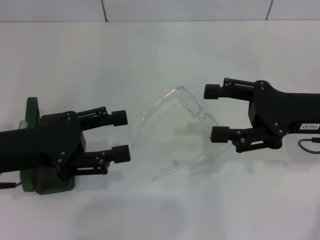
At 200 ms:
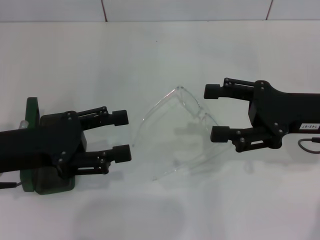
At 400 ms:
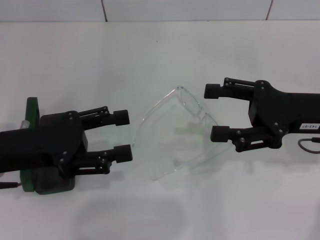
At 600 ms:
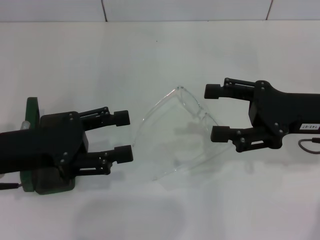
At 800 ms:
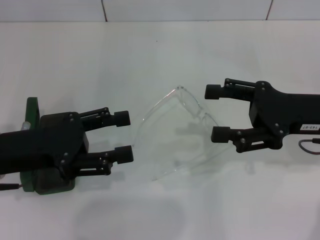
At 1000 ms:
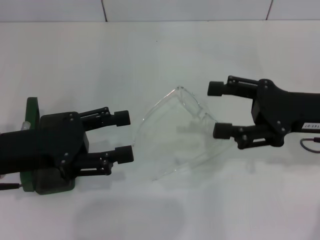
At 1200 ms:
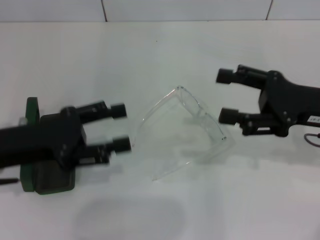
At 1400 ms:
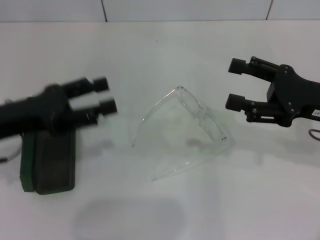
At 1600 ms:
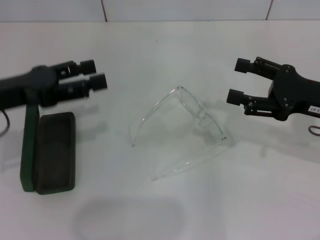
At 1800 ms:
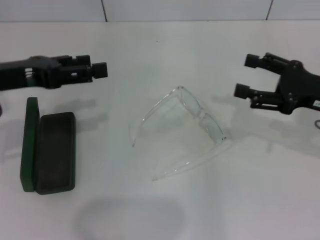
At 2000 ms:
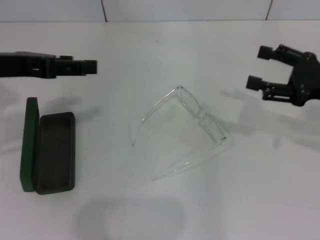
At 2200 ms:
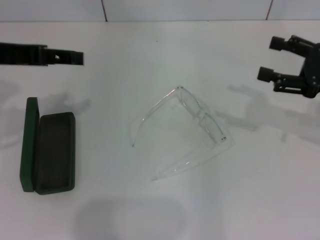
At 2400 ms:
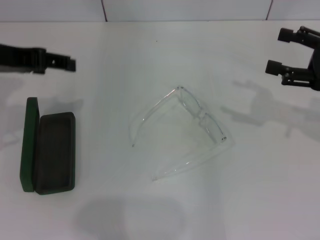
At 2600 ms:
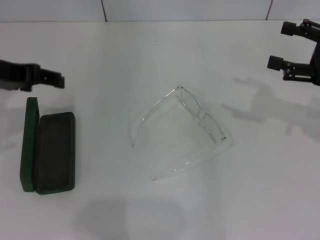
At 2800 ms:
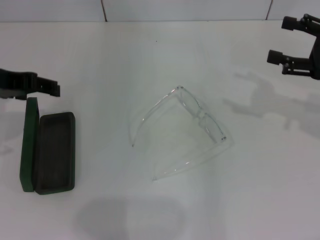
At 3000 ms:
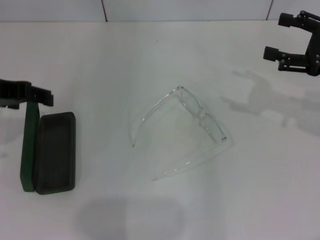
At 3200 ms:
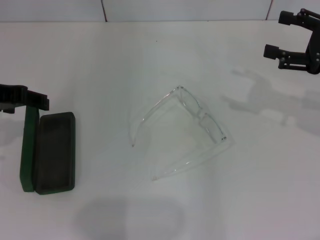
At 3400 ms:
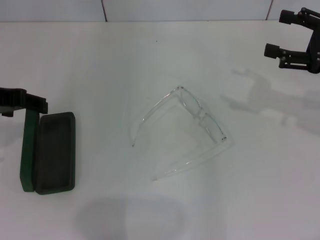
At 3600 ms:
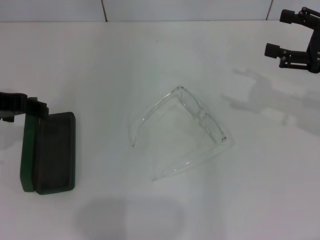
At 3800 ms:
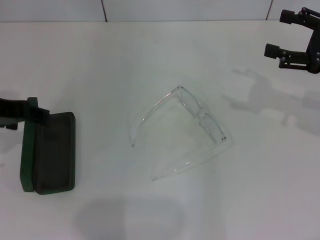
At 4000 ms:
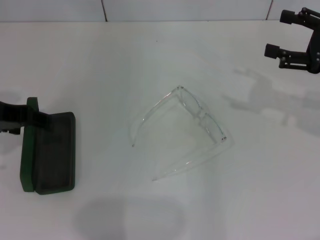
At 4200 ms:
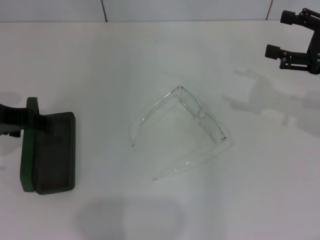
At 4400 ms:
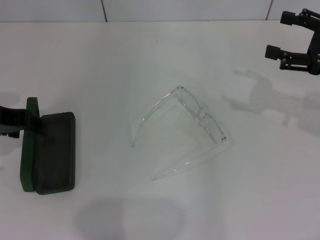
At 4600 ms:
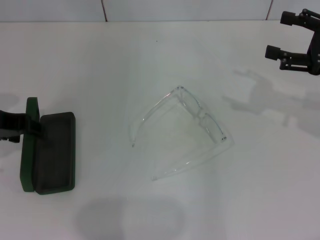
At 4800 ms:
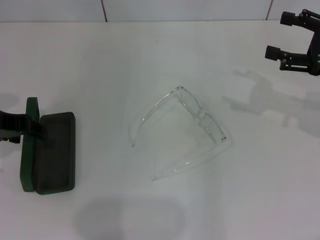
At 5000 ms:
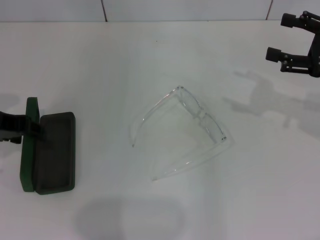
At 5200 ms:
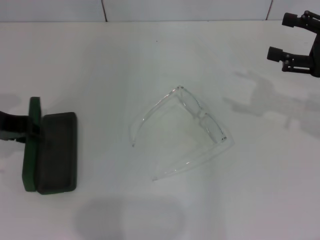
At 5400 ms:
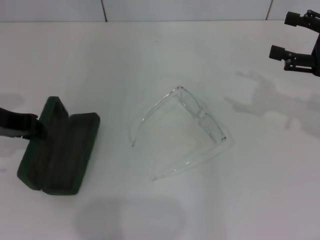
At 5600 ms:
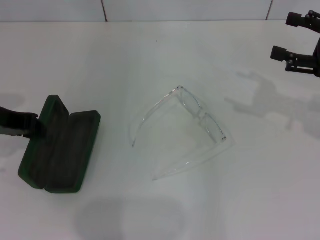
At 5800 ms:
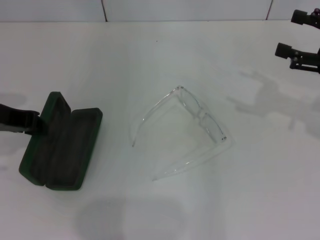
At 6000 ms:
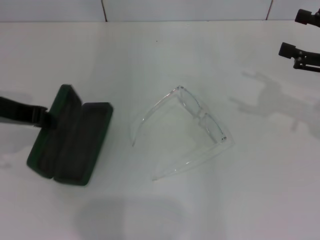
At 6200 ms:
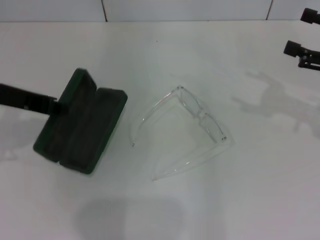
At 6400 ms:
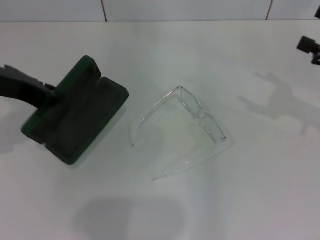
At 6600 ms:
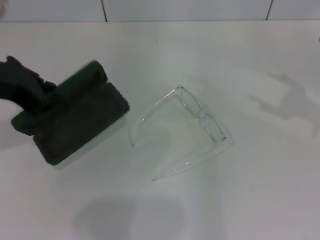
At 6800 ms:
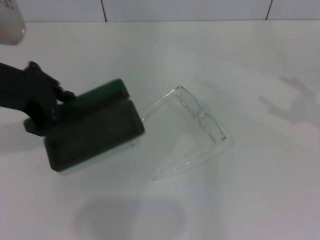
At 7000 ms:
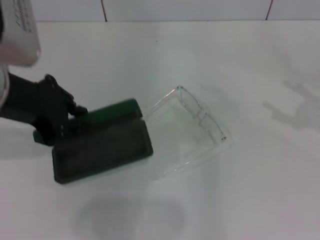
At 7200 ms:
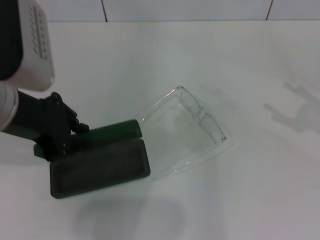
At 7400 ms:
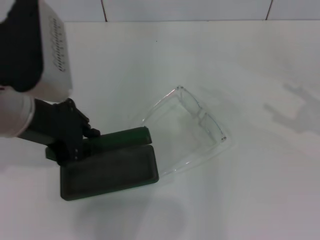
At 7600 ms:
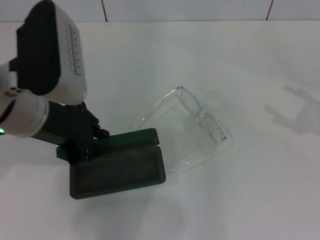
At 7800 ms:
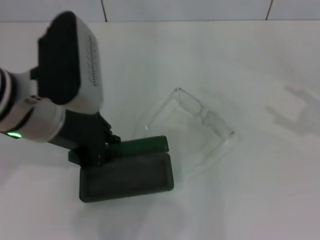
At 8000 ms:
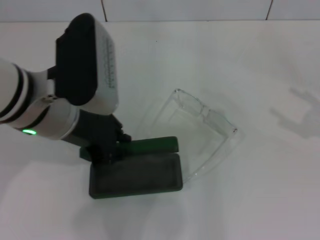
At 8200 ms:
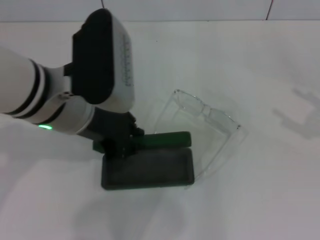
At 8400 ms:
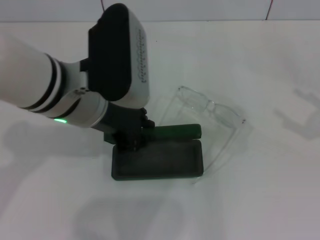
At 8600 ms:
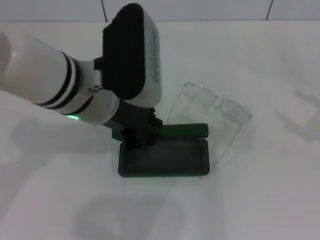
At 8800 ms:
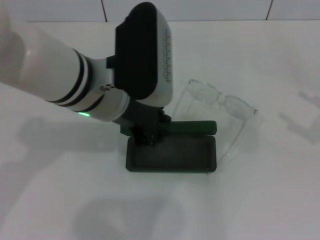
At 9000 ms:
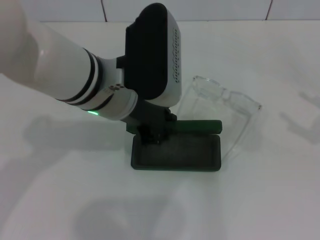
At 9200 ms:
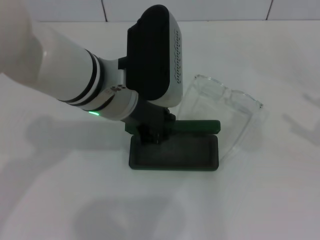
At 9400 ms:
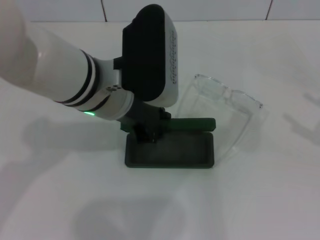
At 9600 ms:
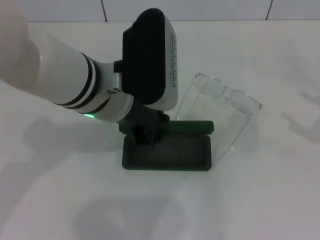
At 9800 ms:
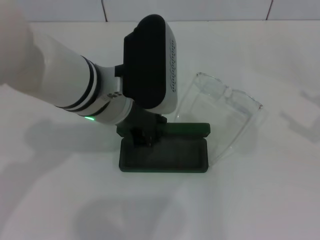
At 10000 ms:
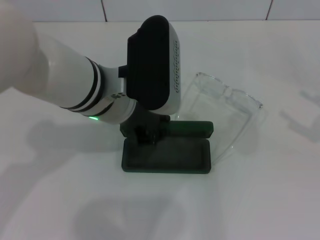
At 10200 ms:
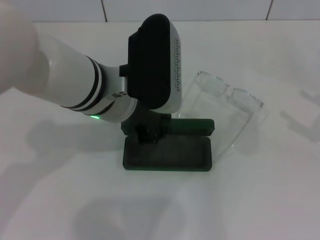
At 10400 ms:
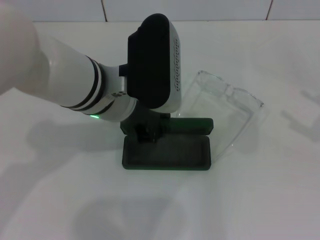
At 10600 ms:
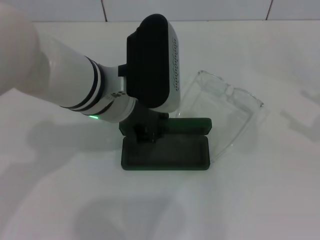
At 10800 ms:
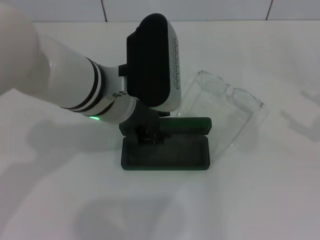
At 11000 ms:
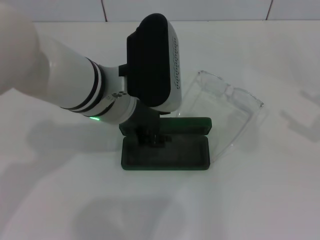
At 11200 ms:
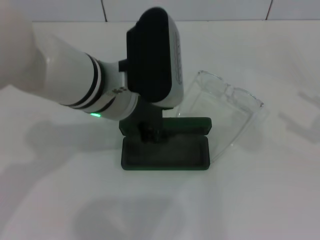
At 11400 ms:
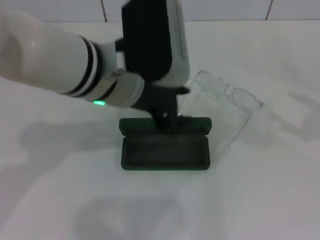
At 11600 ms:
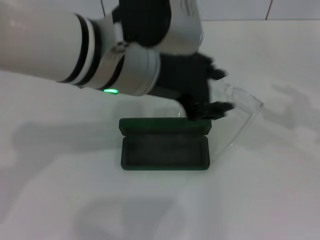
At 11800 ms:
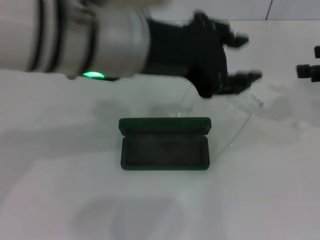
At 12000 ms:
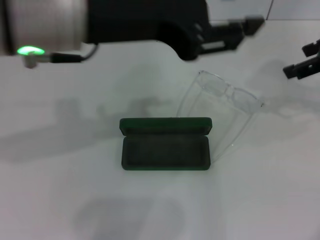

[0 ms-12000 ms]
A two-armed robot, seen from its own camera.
Step, 0 ms to 5200 ms: Grab the glasses case with your left hand.
Step, 5400 ms to 10800 ms: Place the glasses case in the center of the table with your left hand.
0 ms to 1600 ms: The left gripper shifts by approximately 5 cm.
1600 ms to 3000 ms: The left gripper moves upward, some 5 cm, while the right gripper shifts by about 5 cm.
3000 ms to 4400 ms: There are only small adjustments of the grippers.
4400 ms to 6000 ms: The left gripper closes up.
6000 ms to 7600 ms: The right gripper shifts approximately 5 cm backward; the left gripper shifts roughly 10 cm to the right.
7600 ms to 9000 ms: The left gripper travels to the right by roughly 10 cm.
9000 ms to 10400 ms: Both grippers stay about where they are.
10400 ms to 12000 ms: The right gripper heads upward, forward and to the left, covering approximately 20 cm, while the left gripper travels upward by roughly 15 cm, and opens.

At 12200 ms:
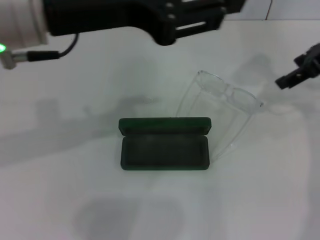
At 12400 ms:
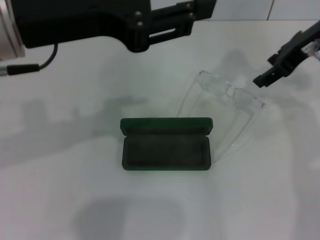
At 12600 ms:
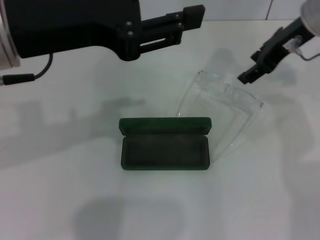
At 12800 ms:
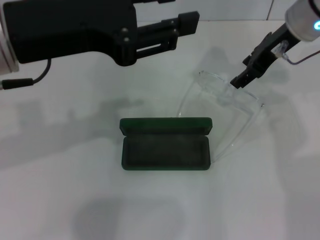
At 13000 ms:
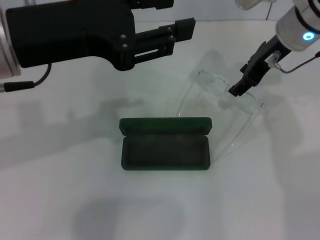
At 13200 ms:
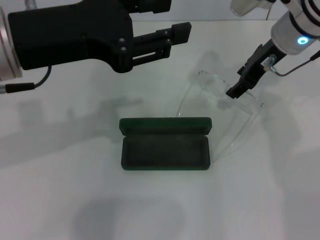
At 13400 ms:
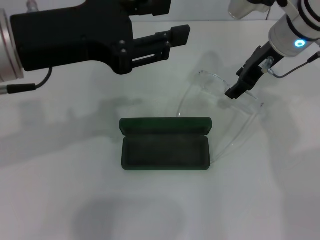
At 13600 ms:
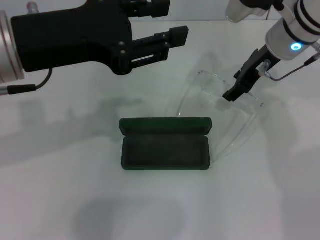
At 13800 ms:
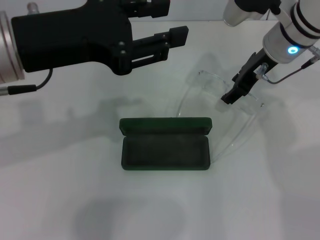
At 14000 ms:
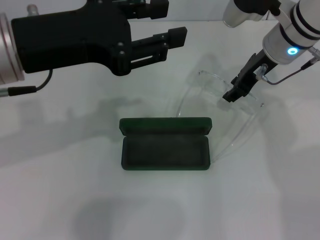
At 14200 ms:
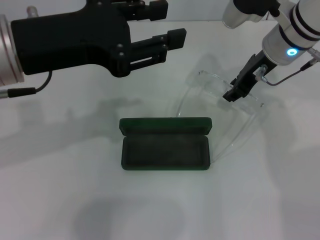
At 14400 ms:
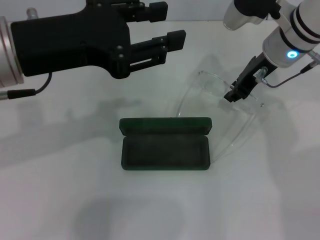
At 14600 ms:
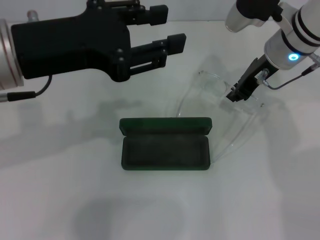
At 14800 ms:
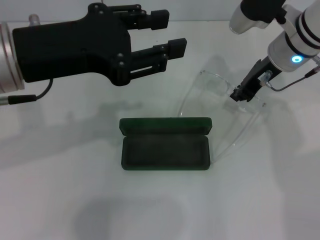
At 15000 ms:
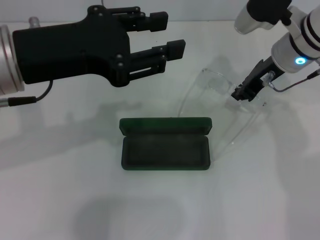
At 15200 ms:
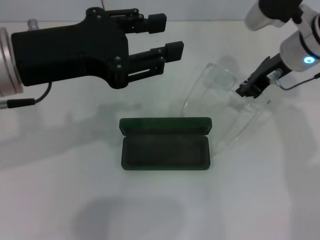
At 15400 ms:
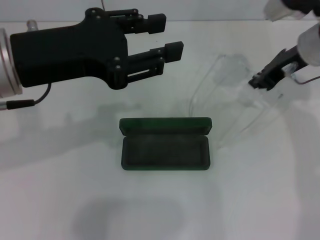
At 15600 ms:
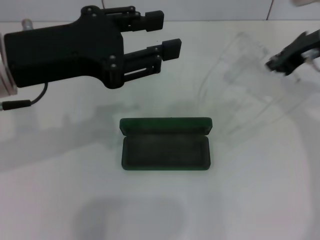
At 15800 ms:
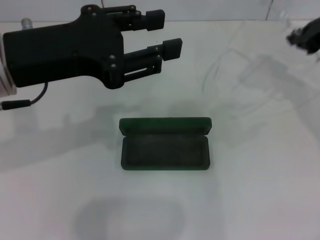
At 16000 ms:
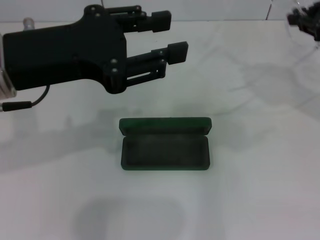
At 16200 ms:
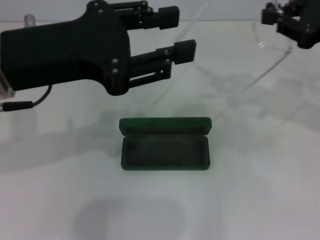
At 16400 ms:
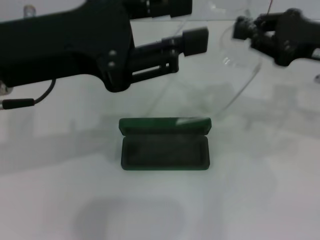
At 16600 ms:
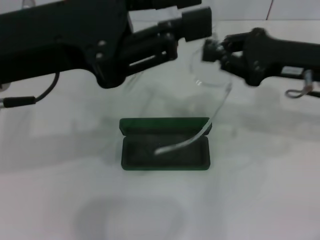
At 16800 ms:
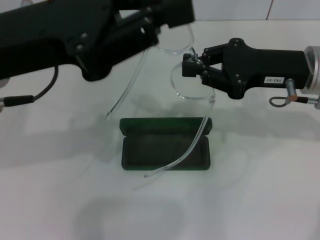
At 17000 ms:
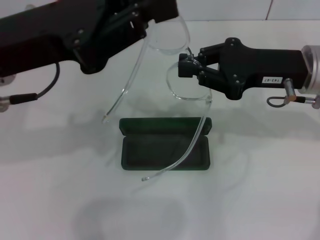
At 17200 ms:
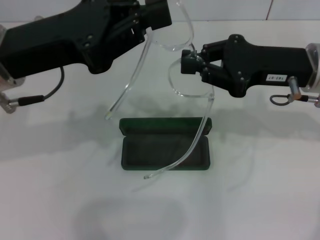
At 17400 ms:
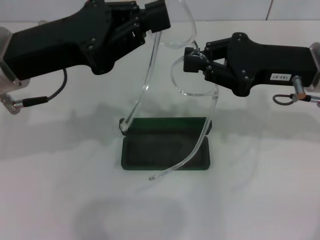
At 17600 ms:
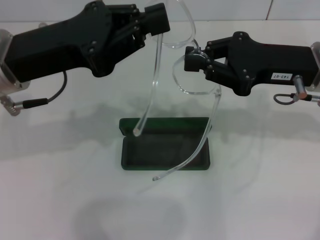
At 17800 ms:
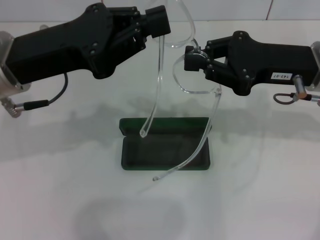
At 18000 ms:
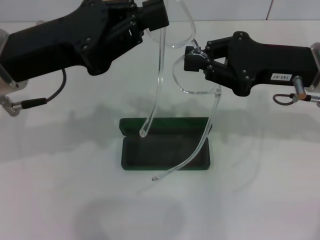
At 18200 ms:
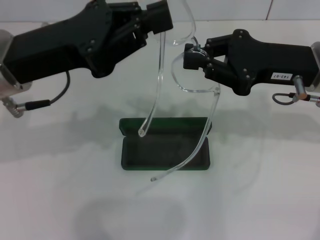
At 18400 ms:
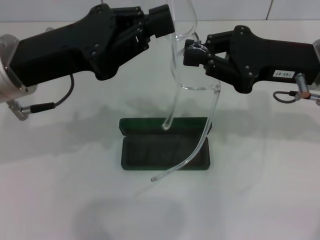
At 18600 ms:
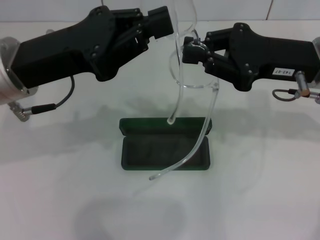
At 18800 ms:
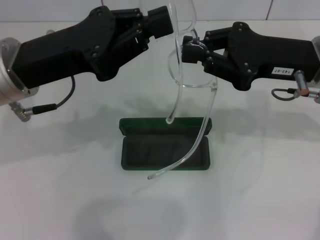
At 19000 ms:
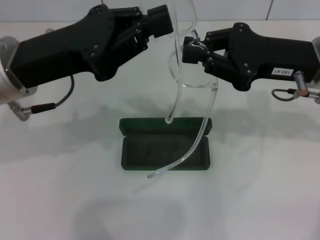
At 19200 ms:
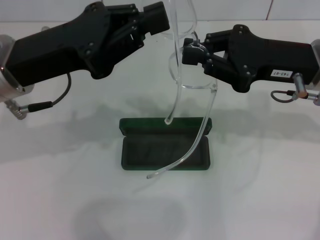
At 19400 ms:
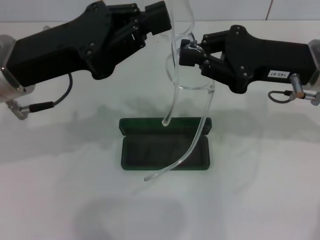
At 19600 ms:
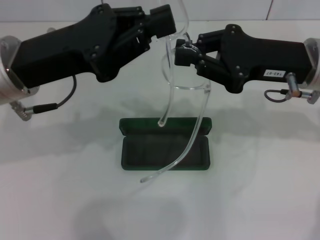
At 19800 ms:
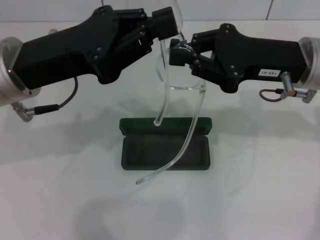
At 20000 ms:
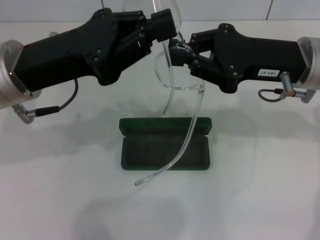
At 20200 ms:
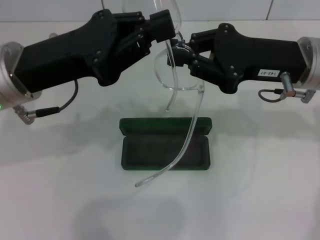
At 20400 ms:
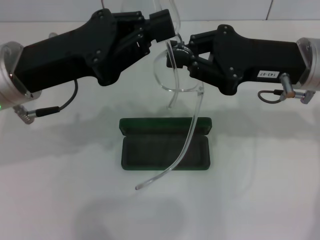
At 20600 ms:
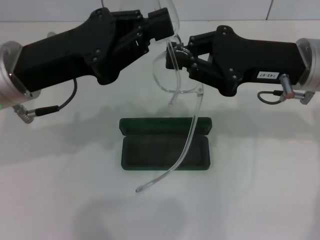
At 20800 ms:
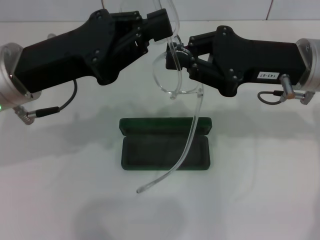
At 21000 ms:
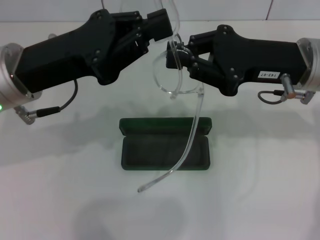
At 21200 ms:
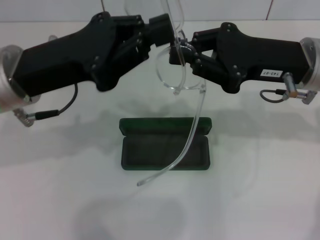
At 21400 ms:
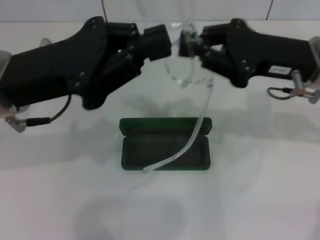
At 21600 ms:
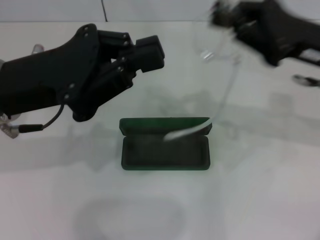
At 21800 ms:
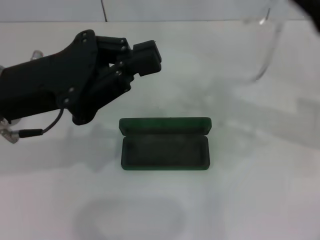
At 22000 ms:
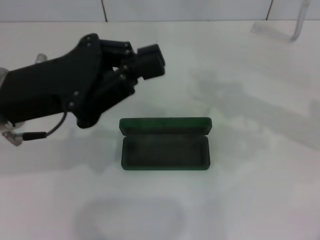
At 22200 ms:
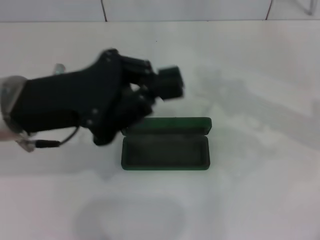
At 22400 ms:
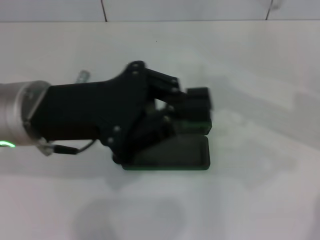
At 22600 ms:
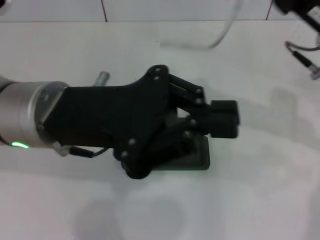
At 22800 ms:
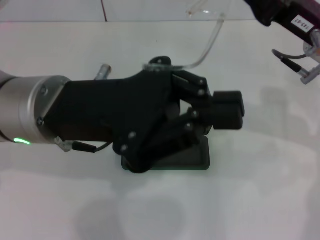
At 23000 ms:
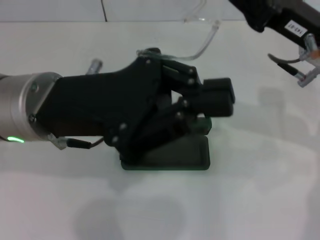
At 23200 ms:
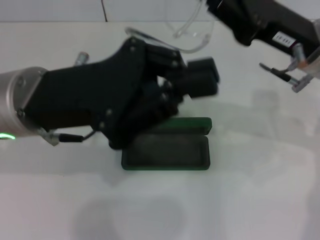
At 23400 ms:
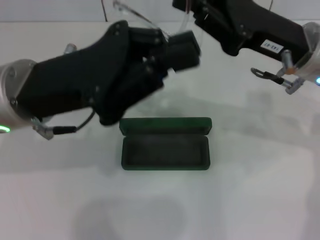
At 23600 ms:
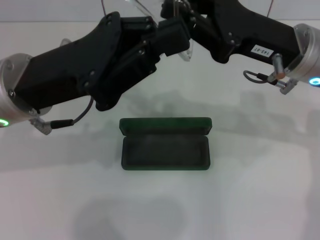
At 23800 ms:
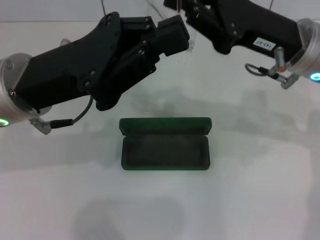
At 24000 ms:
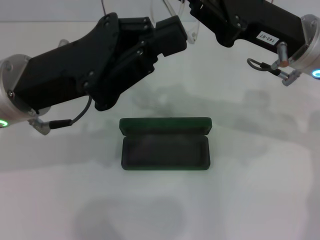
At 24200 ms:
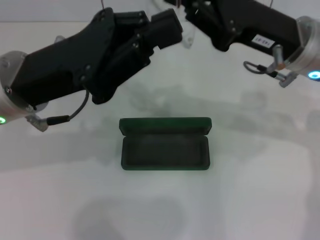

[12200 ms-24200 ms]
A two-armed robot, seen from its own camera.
Step, 12200 ms to 14600 ms: Grab the eyeglass frame with your right hand.
12200 ms to 13800 ms: The left gripper shifts by some 5 cm. Meanwhile the right gripper travels to the left and downward by about 10 cm.
13800 ms to 15200 ms: The right gripper closes up.
15200 ms to 16600 ms: The right gripper travels backward by approximately 10 cm.
16600 ms to 18200 ms: The left gripper travels downward by roughly 5 cm, and closes.
18200 ms to 19800 ms: The grippers stay close to where they were, moving slightly.
19800 ms to 21200 ms: Neither gripper changes place.
21200 ms to 22600 ms: The left gripper changes place by some 5 cm.
